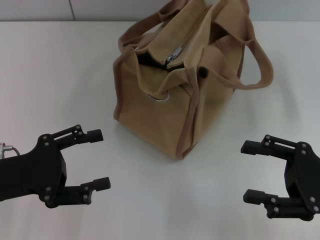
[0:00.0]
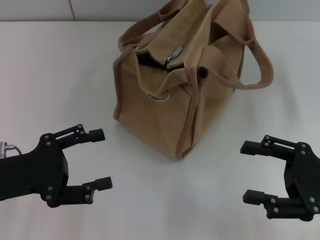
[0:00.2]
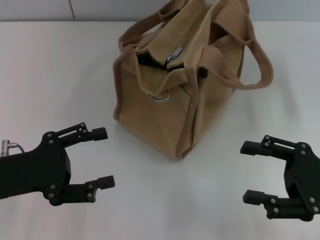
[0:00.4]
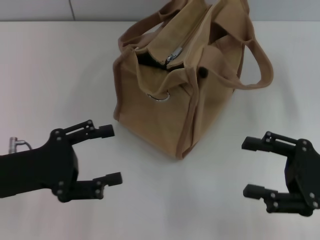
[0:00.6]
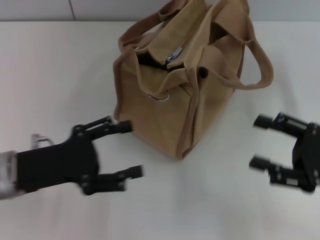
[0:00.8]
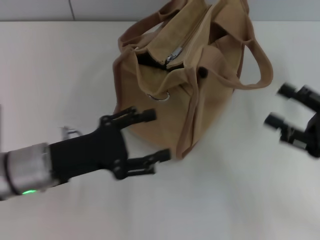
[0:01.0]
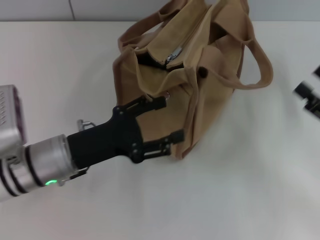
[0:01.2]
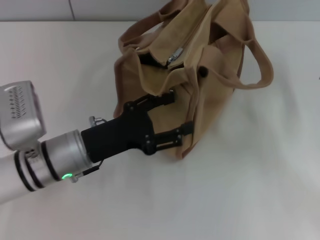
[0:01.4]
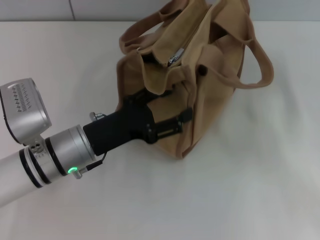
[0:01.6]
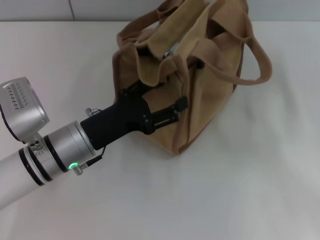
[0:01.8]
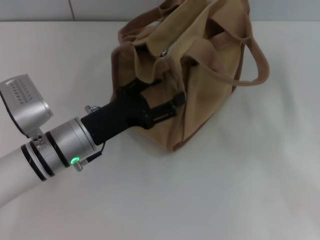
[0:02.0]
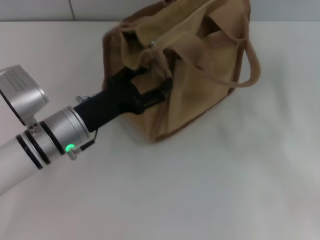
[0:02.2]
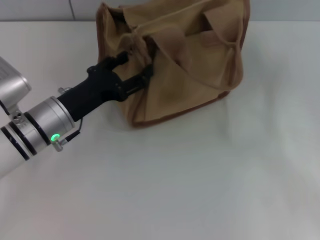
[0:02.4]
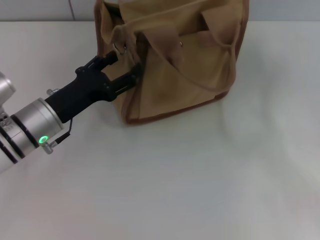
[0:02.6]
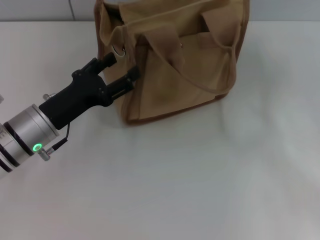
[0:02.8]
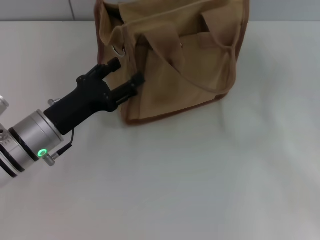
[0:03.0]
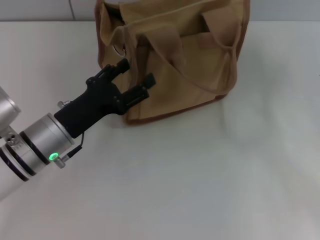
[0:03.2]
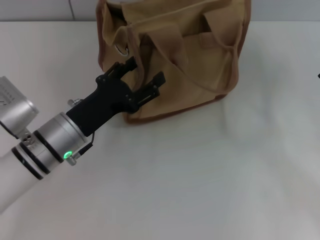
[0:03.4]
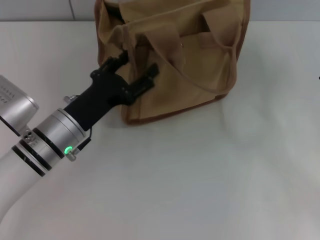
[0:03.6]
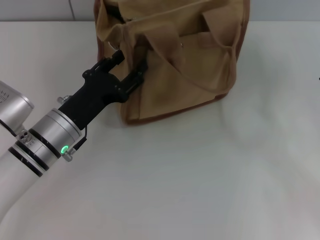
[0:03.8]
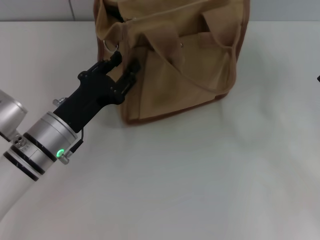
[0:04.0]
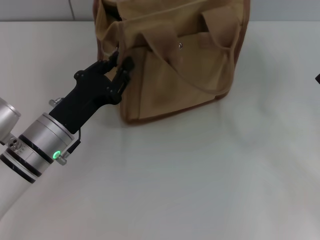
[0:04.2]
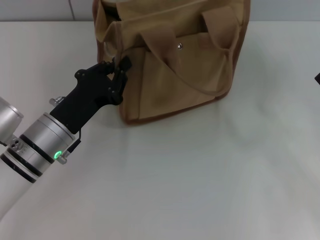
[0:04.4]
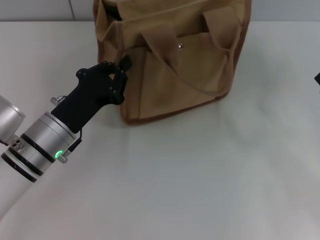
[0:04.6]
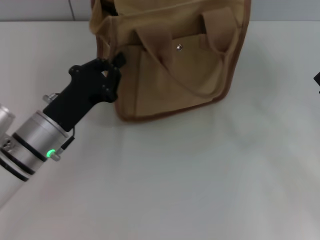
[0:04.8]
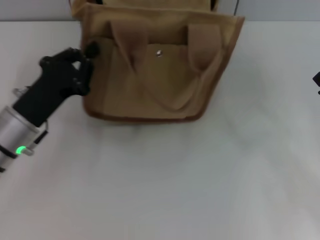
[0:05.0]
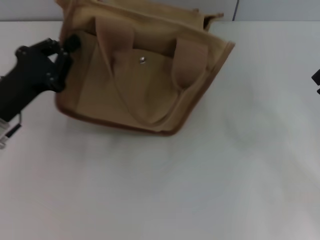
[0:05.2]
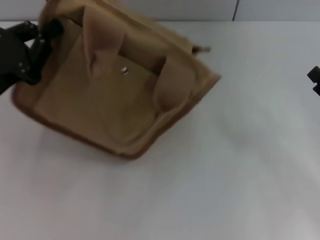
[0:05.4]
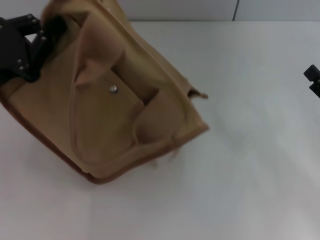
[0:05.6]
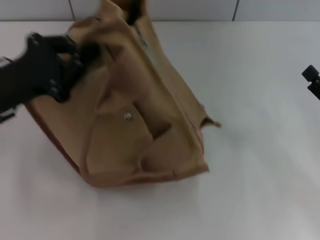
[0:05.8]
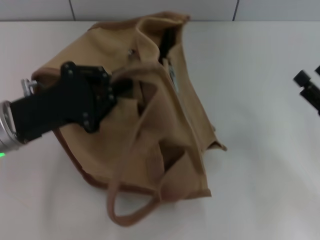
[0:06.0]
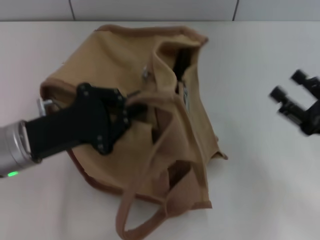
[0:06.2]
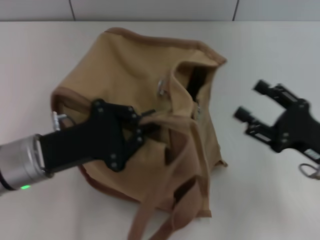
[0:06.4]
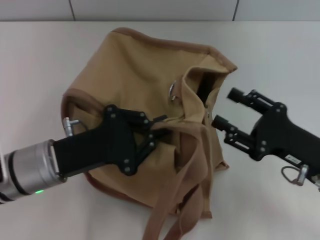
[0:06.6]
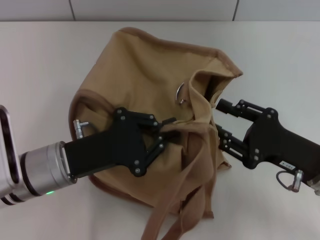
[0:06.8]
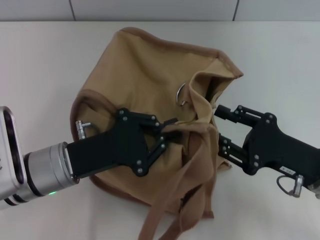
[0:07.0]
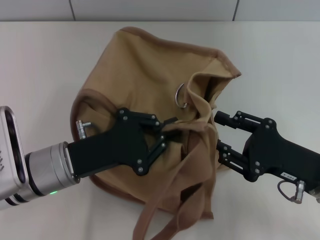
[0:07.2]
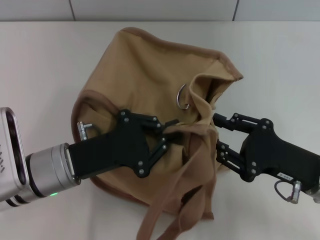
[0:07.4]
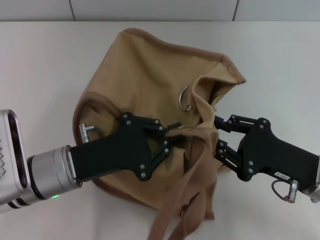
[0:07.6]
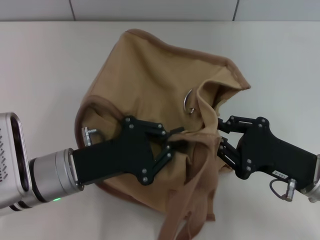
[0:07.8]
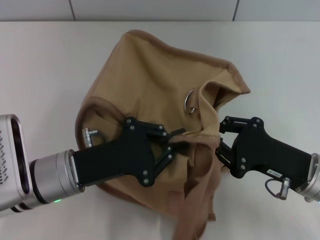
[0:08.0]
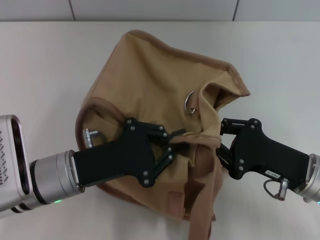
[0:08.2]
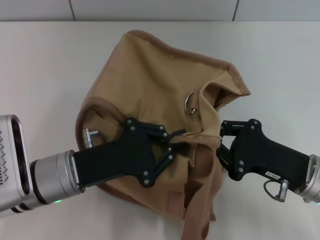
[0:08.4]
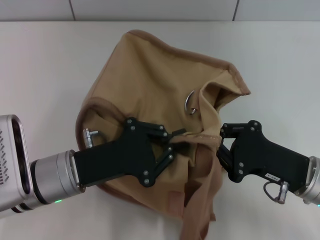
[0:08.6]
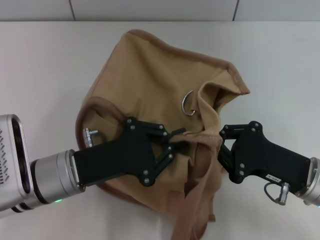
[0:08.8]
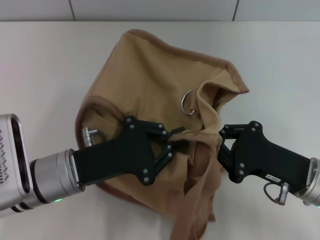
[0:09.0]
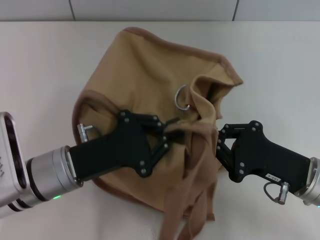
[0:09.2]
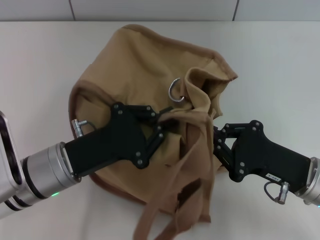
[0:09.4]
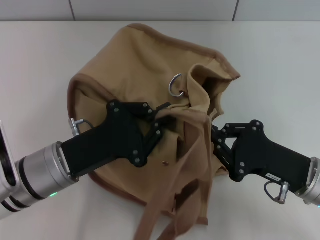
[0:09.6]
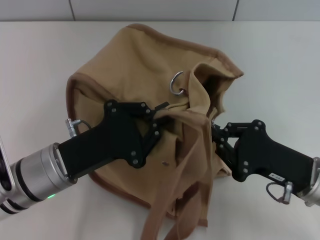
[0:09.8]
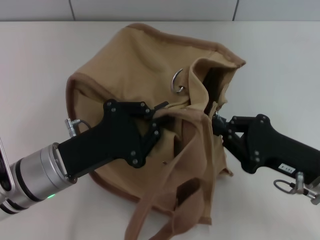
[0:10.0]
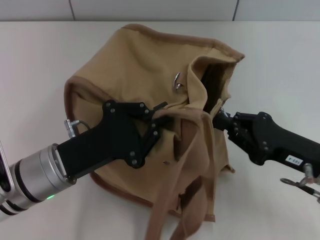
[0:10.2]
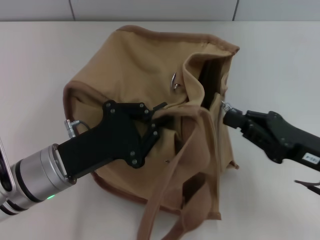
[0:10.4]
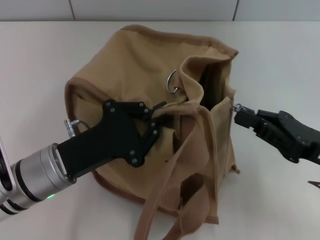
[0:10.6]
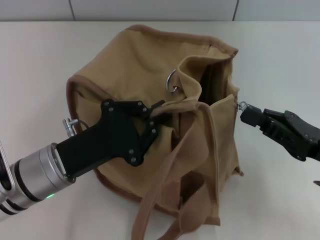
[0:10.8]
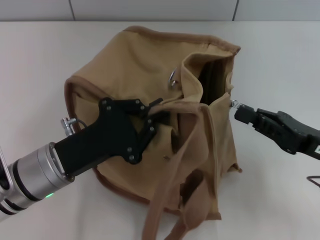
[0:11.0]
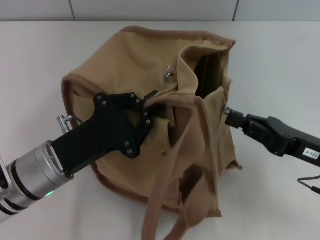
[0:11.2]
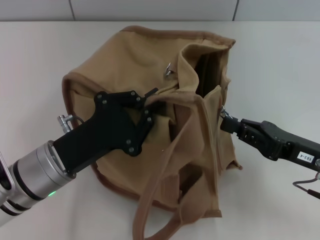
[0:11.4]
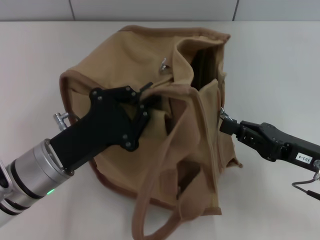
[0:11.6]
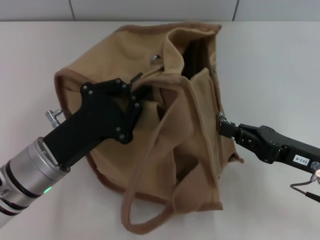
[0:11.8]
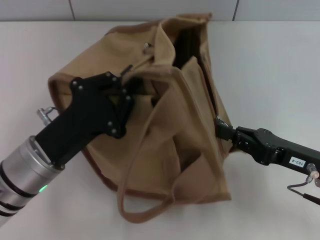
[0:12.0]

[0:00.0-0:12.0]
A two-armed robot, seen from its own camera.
0:00.0 to 0:01.6: The right gripper moves to the right, about 5 cm, while the left gripper heads to the right and forward, covering some 15 cm.
0:03.0 to 0:04.4: The left gripper closes up.
0:04.4 to 0:06.0: The left gripper travels upward and to the left by approximately 10 cm.
0:06.0 to 0:07.6: The right gripper heads to the left, covering about 10 cm, and closes its fingers, while the left gripper travels to the right by about 5 cm.
0:07.6 to 0:09.0: The right gripper closes.

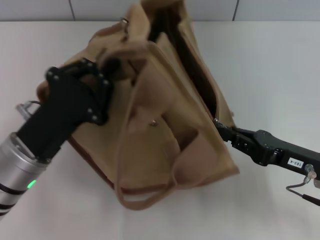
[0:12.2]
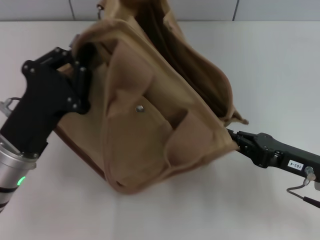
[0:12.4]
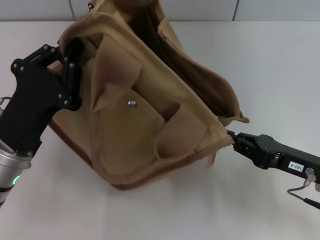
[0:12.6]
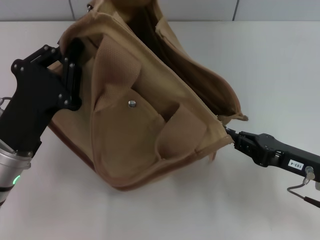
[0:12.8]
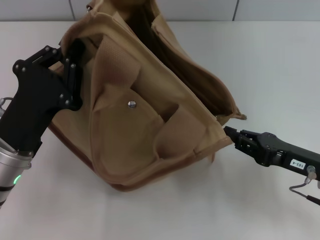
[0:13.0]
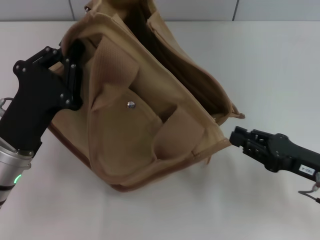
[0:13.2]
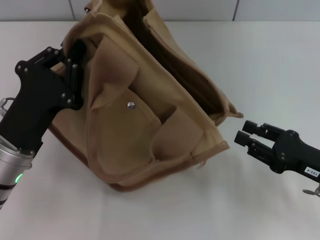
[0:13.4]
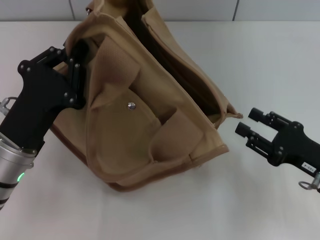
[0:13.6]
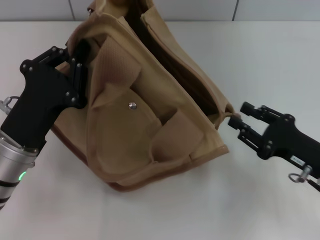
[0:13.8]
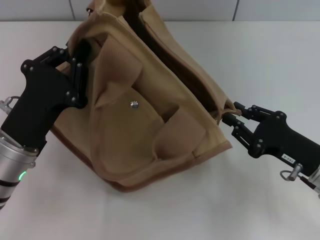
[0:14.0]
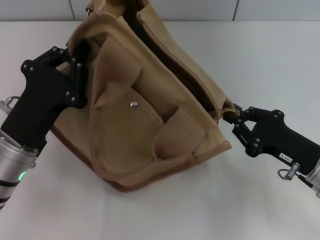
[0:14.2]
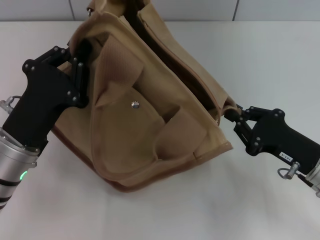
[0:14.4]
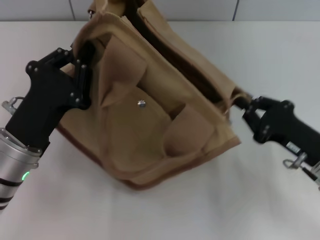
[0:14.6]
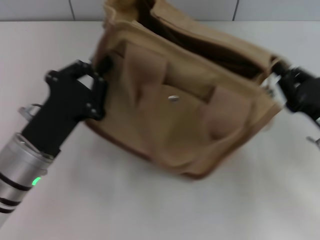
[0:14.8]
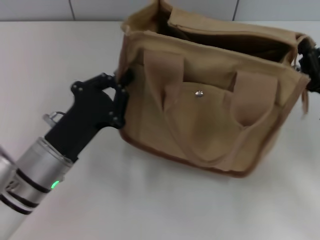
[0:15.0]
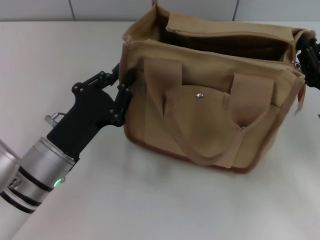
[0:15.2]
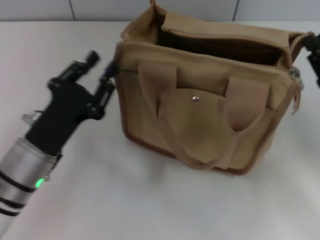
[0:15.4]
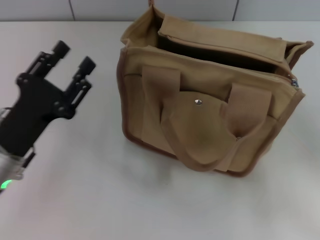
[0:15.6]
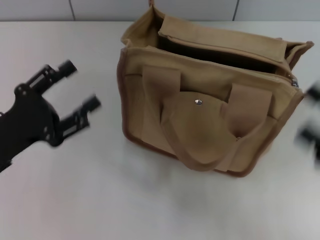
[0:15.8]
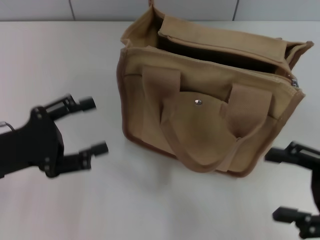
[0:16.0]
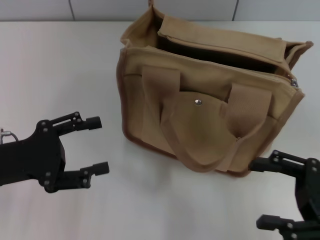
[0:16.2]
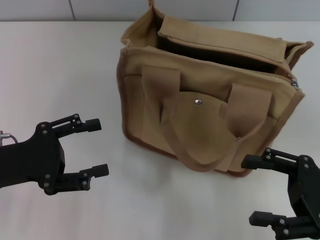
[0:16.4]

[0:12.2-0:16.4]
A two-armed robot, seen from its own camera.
Step, 0:13.2 to 0:15.2: Grab the bag with your left hand.
0:12.2 to 0:13.6: The right gripper opens.
0:13.6 to 0:15.0: The right gripper closes.
0:15.0 to 0:16.4: The right gripper travels backward by roughly 5 cm, and opens up, while the left gripper heads to the left, covering about 10 cm, and opens its fingers.

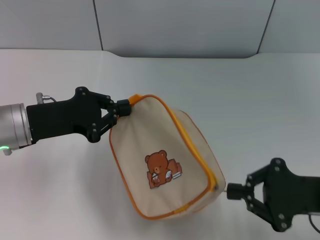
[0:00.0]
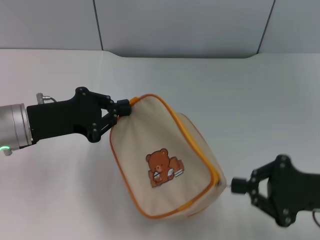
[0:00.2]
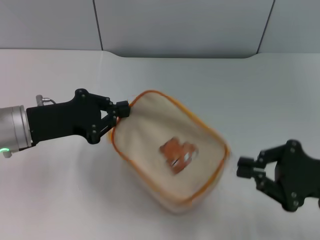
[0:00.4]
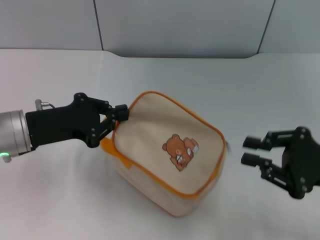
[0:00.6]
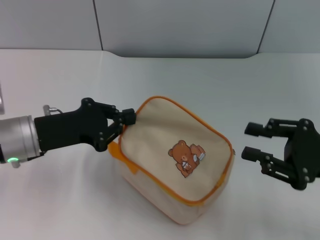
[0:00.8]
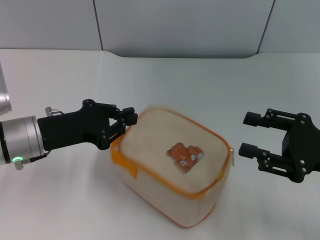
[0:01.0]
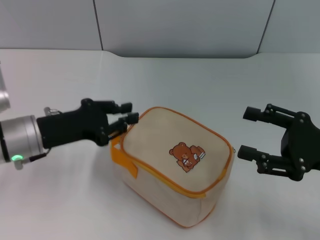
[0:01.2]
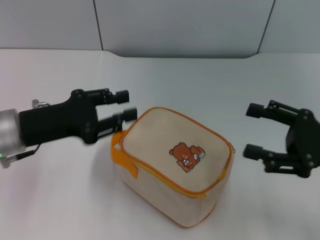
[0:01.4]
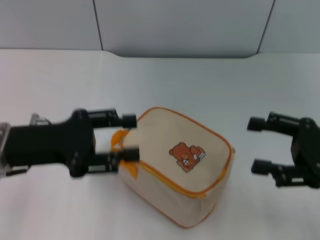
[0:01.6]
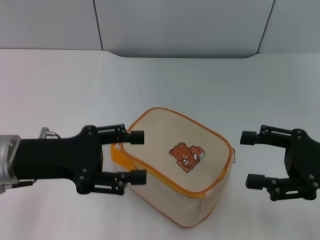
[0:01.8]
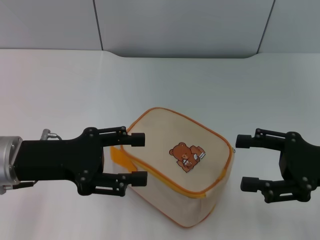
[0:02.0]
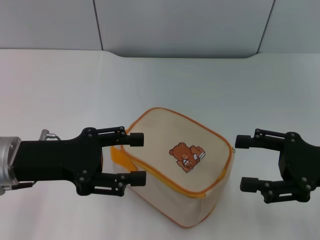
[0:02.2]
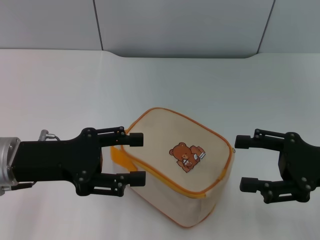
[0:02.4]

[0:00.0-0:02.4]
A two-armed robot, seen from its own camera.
Step, 0:00.8 to 0:01.4: Place the bag on the table with left gripper.
0:00.0 to 0:01.2: The right gripper opens its fingers.
0:01.2 to 0:02.4: The right gripper opens. Meanwhile the left gripper moves some 5 cm, and opens.
